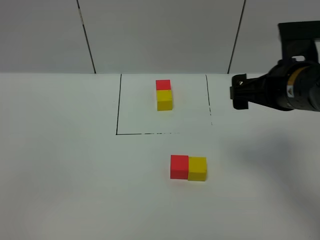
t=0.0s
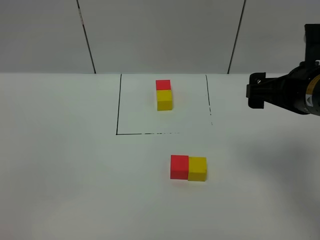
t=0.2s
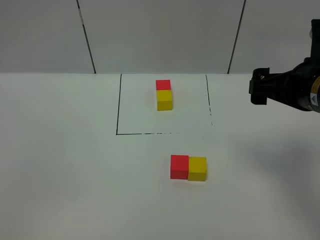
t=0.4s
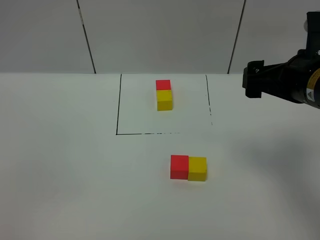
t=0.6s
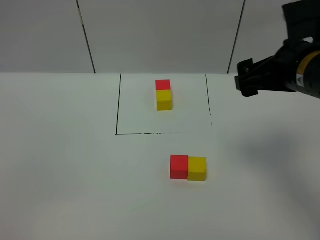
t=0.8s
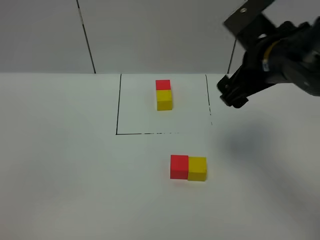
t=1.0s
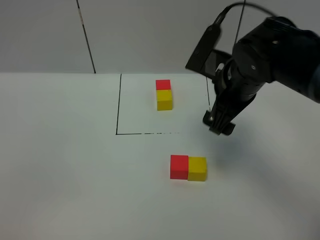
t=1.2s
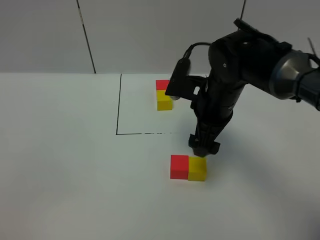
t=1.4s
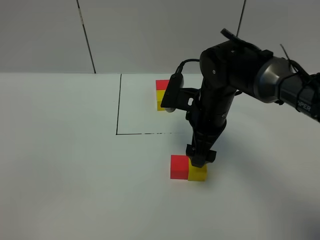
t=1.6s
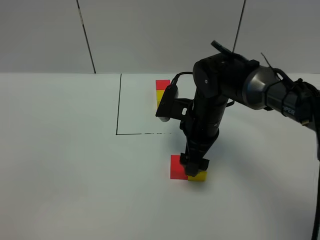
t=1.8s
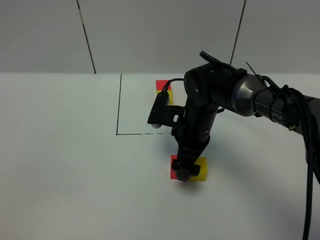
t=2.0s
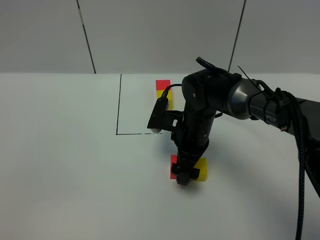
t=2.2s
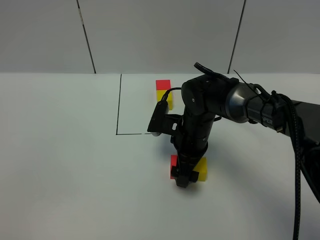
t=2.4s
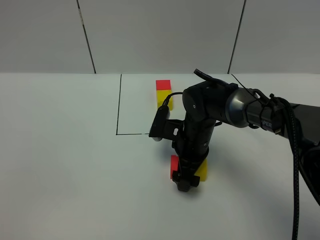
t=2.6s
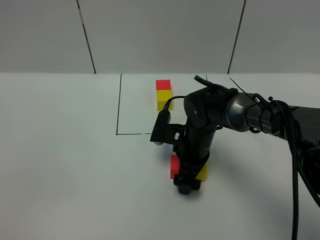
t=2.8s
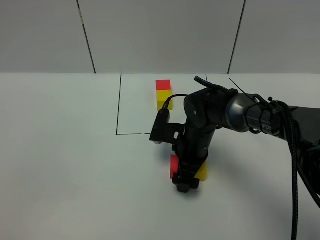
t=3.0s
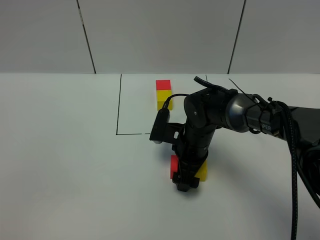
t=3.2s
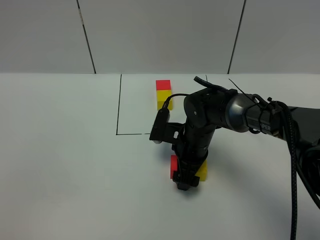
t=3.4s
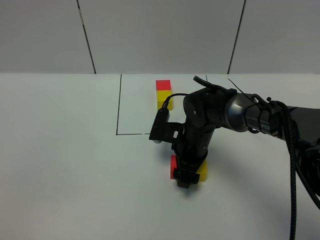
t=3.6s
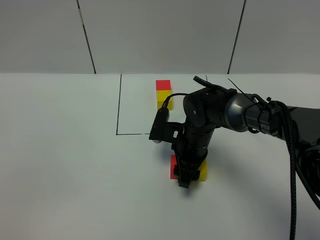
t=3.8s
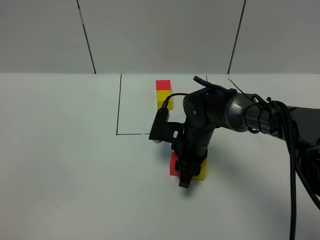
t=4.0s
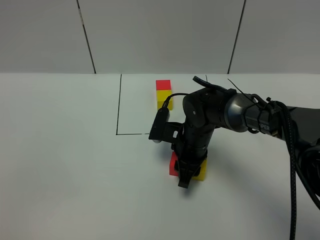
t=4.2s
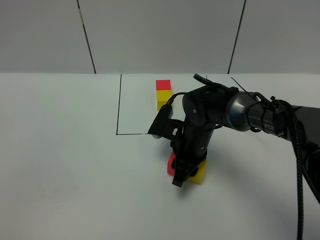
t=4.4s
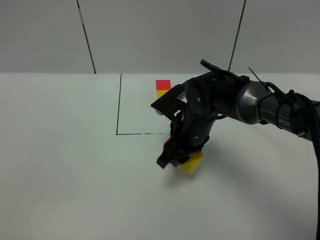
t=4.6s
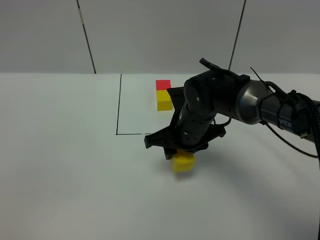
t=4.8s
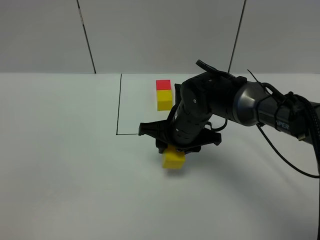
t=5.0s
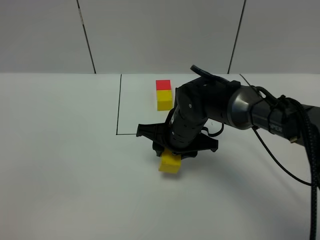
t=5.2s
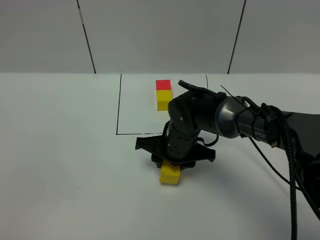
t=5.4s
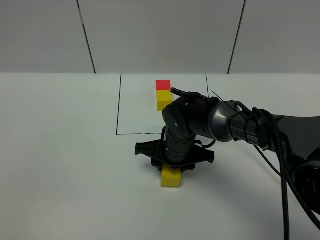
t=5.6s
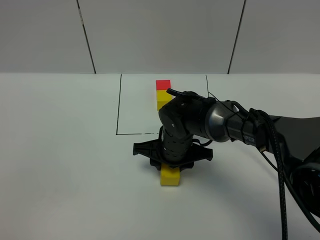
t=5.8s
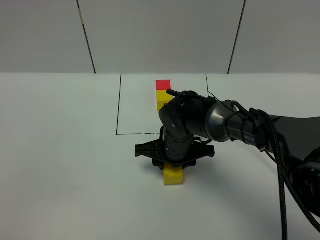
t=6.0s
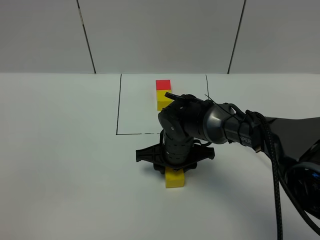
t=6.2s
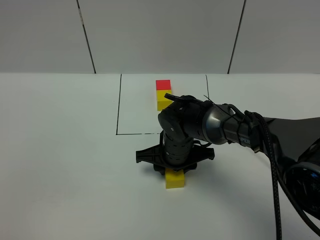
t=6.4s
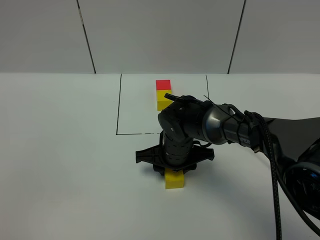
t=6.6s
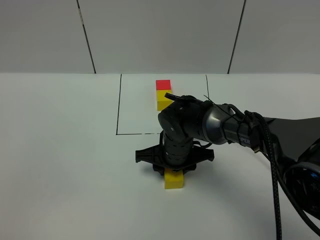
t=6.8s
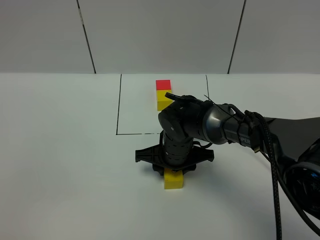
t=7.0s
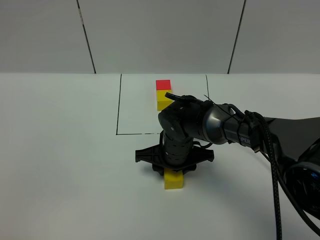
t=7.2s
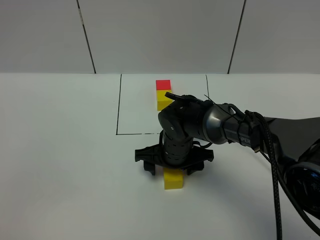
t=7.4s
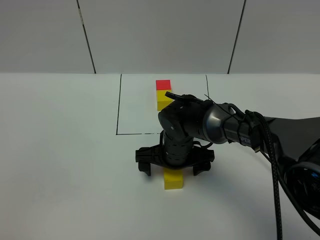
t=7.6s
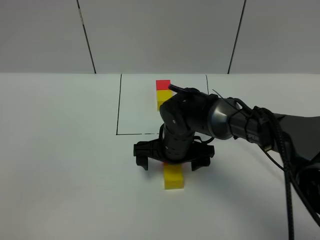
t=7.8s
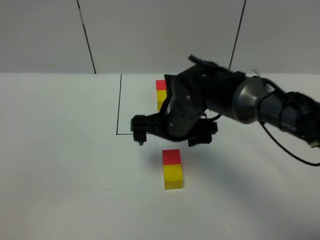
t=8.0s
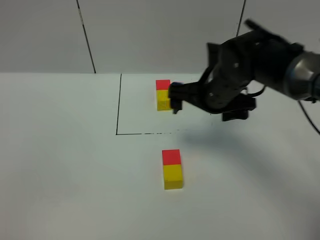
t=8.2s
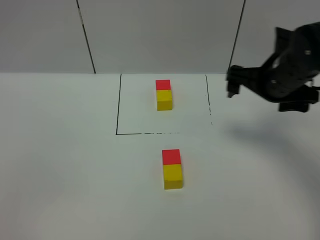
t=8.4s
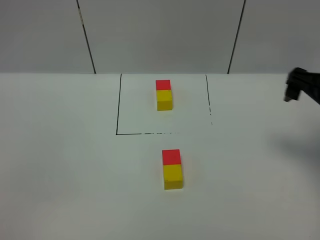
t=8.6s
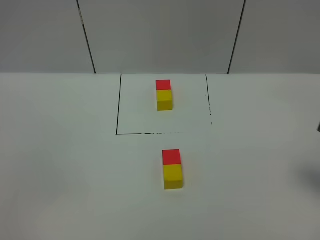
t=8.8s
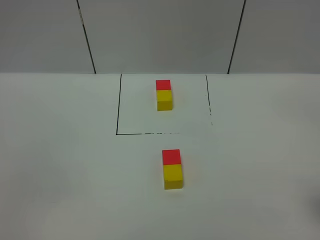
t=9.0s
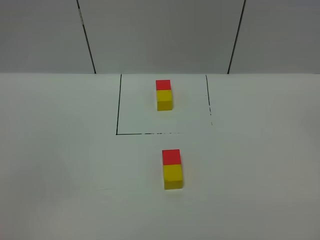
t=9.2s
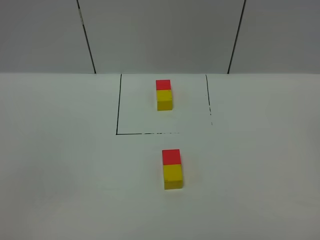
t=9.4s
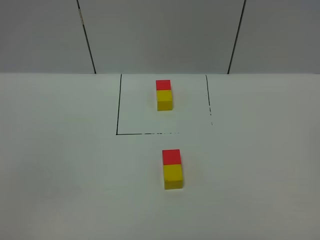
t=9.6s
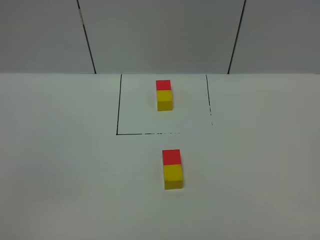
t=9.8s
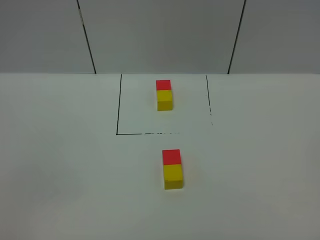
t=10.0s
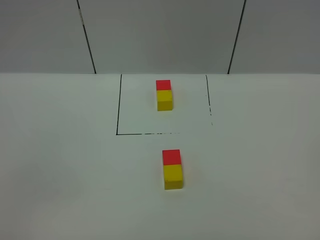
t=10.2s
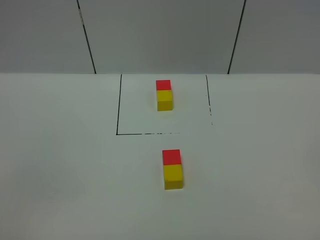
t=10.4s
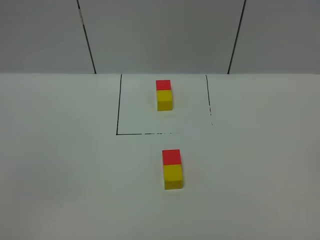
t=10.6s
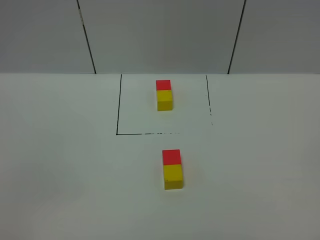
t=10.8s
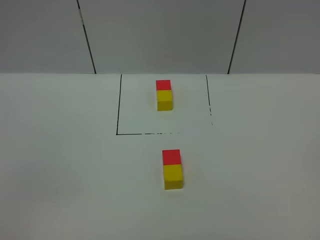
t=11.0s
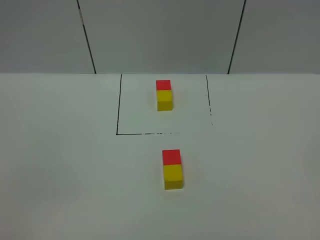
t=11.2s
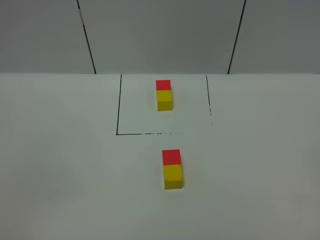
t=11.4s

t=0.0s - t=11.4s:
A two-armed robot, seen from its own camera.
Task of the whole recording: According to the building block template in front, assemble the scattered blocks together.
Step, t=0.0s - t=8.4s: Adjust the pose of the building blocks.
t=0.0s - t=1.4s: The right gripper heads to the left, downward and forward, covering some 15 cm.
t=1.4s - t=2.8s: The right gripper heads downward, covering approximately 10 cm.
t=2.8s - t=4.2s: The right gripper closes.
t=5.6s - t=7.2s: There are only small adjustments of the grippers.
t=7.2s - t=8.6s: The right gripper heads to the right and upward, covering some 30 cm, and opens.
t=8.6s - t=10.0s: The right gripper shifts some 30 cm backward.
